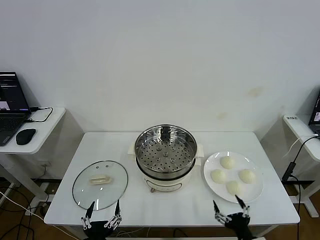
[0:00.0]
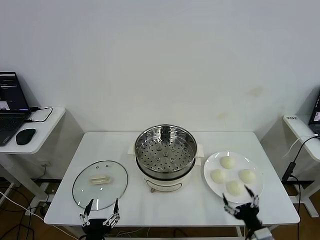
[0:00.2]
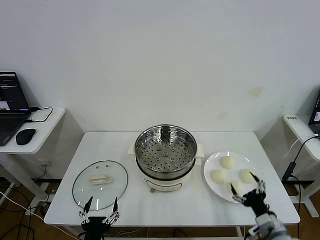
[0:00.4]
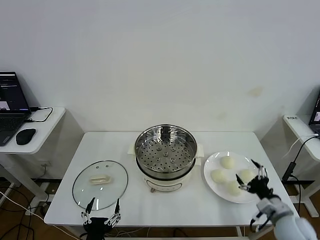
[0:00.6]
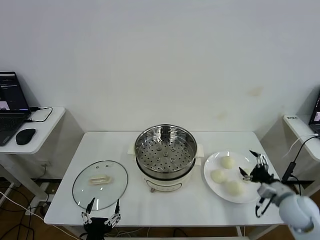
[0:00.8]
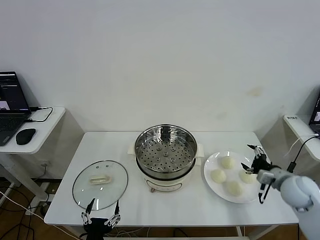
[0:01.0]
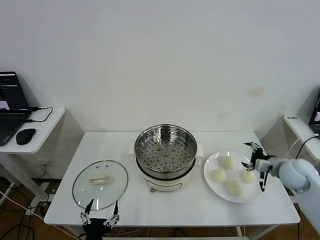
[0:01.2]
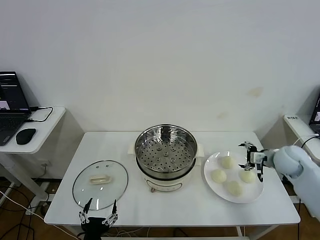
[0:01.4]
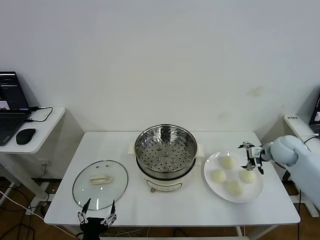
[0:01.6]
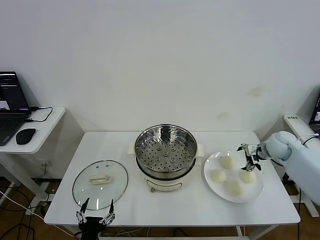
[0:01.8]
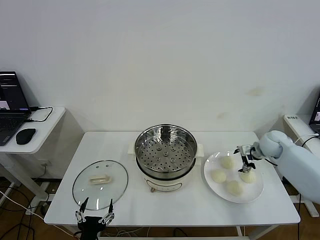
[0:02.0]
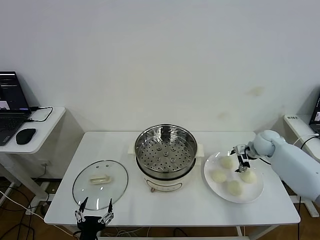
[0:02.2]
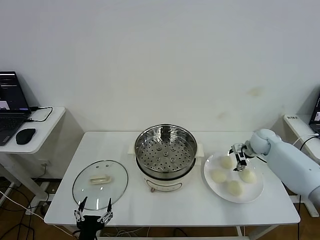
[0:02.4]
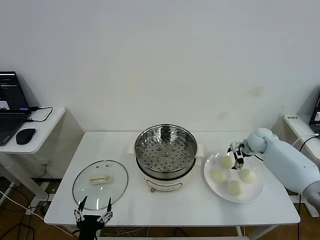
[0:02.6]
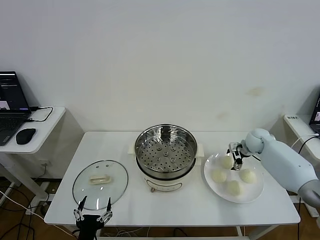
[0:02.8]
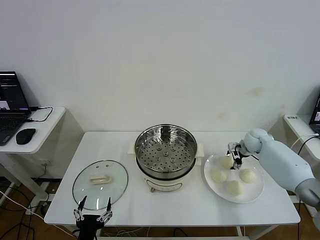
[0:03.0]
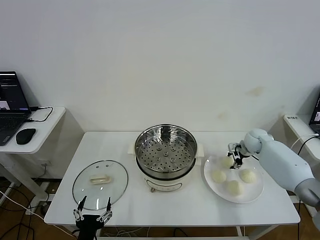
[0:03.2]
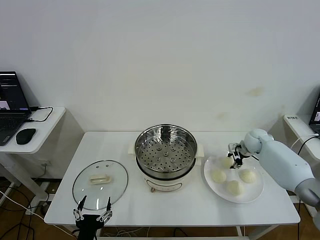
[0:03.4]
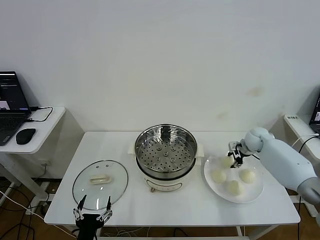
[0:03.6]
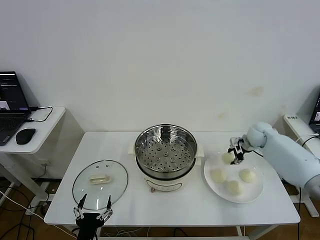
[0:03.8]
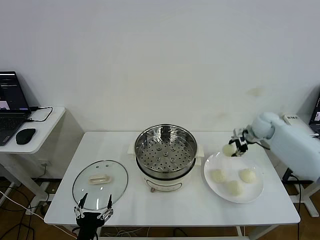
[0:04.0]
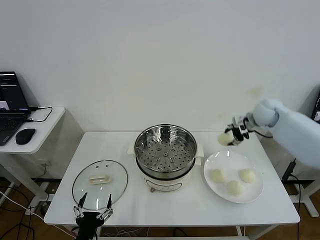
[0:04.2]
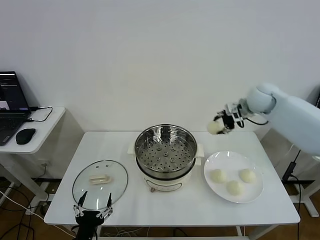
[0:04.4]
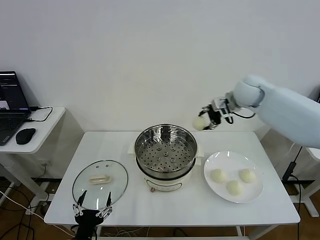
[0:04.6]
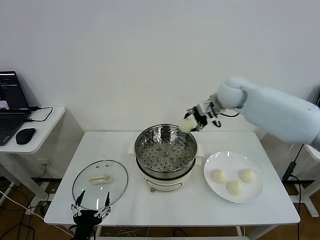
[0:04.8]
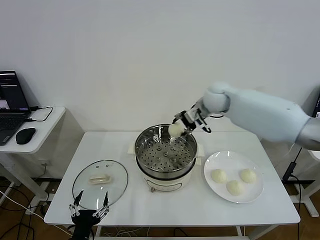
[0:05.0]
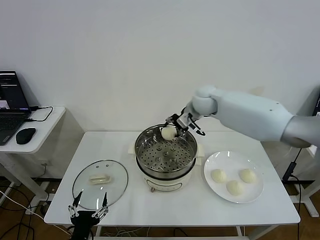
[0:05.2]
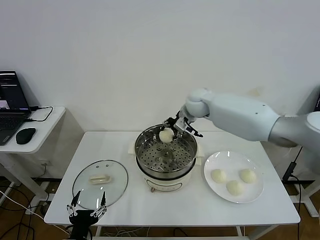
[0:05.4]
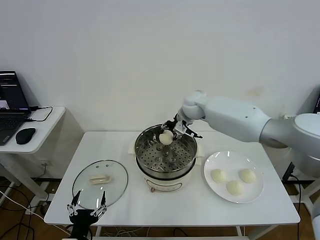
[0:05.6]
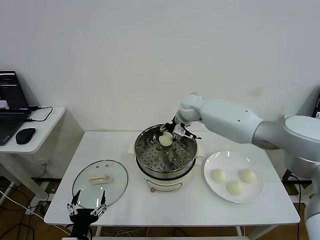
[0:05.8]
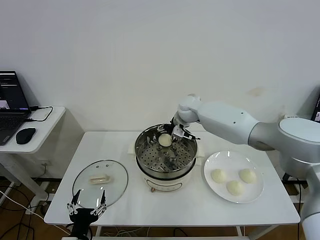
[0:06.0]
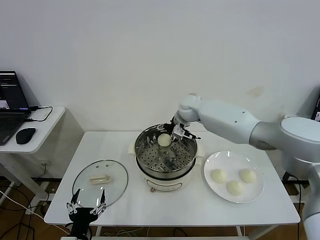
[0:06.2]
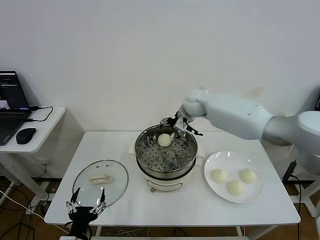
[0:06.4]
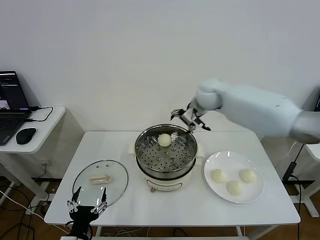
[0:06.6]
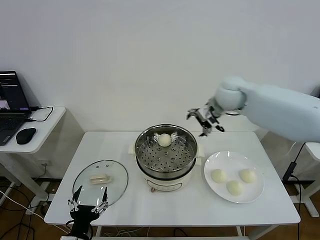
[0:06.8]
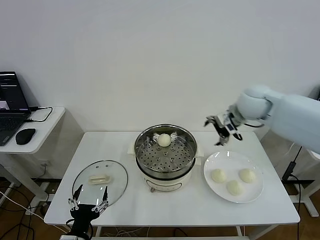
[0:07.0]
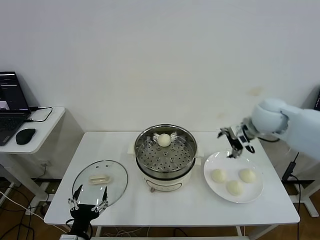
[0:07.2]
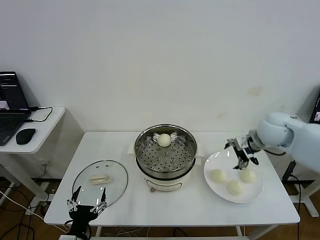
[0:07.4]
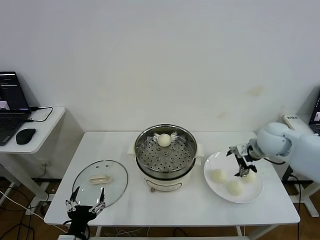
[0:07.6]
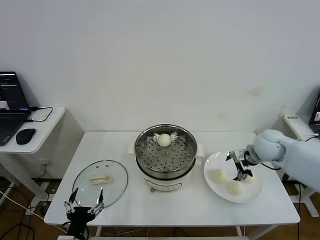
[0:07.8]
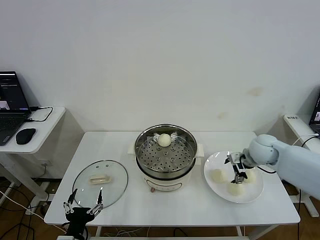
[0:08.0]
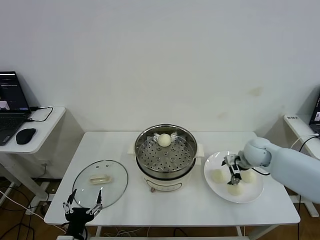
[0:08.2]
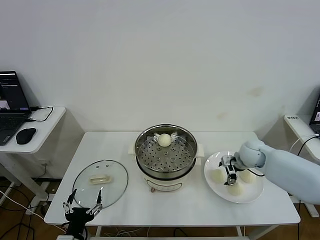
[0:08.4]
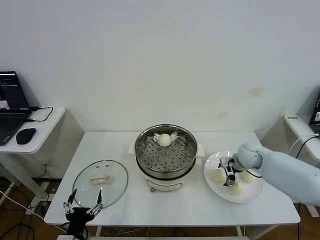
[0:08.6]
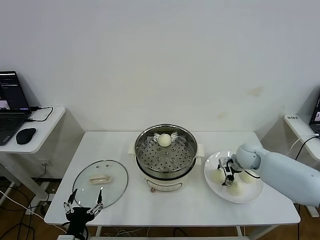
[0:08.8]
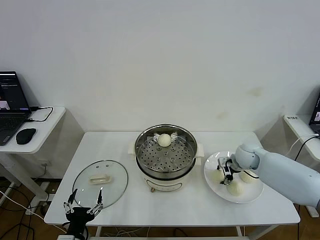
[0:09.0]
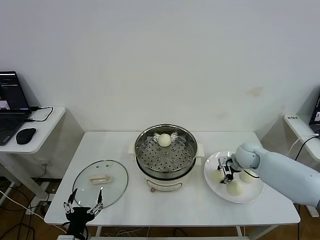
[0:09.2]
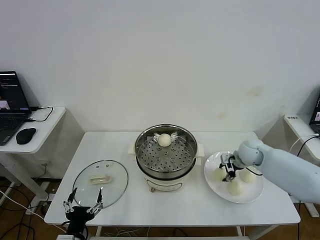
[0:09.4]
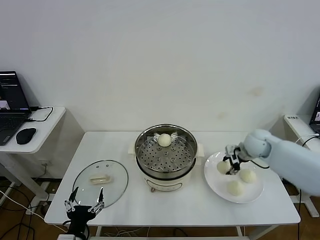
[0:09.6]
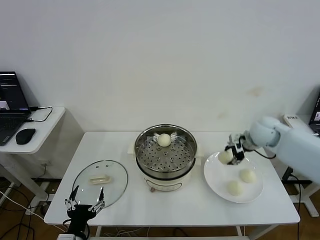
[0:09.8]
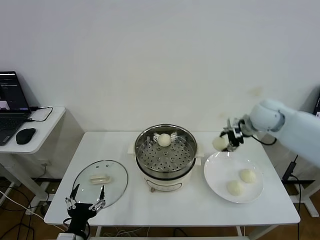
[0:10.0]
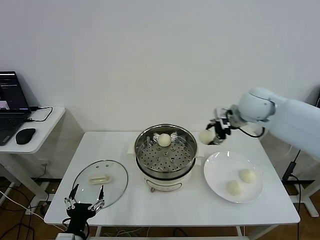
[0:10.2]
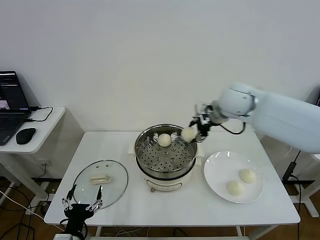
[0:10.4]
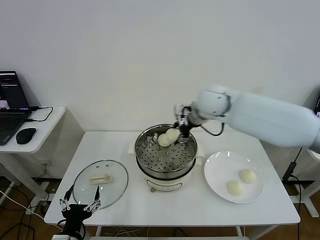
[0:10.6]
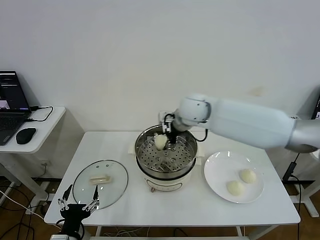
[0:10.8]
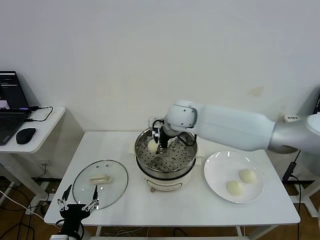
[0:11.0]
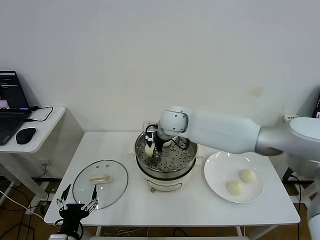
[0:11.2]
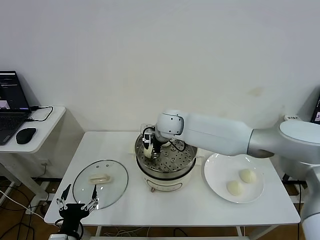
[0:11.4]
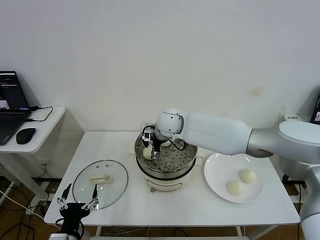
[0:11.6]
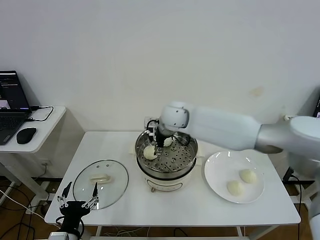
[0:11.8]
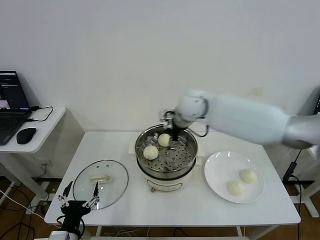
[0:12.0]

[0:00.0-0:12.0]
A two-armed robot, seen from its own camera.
Step, 0:00.0 to 0:03.2: Grasp the baozi in the plate with right gripper.
Step, 0:03.4 to 0:06.0: Place the baozi on the steamer with right gripper.
Step, 0:06.2 to 0:09.0: Grasp the baozi in the plate with right gripper.
Step, 0:09.2 to 0:11.4: Place the baozi on the steamer with right gripper.
0:01.6 to 0:03.0: The right gripper shifts some 10 cm forward and downward, and closes its fingers.
0:03.0 to 0:04.4: The right gripper heads upward and to the left, covering approximately 25 cm.
0:04.4 to 0:06.0: The right gripper travels to the left and downward by about 20 cm, and opens.
0:06.0 to 0:07.6: The right gripper is displaced to the right and backward by roughly 30 cm.
0:07.6 to 0:09.0: The right gripper shifts roughly 10 cm downward, and closes up.
0:09.0 to 0:10.4: The right gripper travels upward and to the left by some 30 cm.
0:10.4 to 0:12.0: The right gripper travels to the left and back again, approximately 15 cm each way, and opens up.

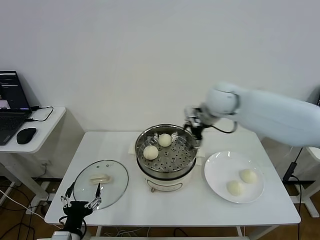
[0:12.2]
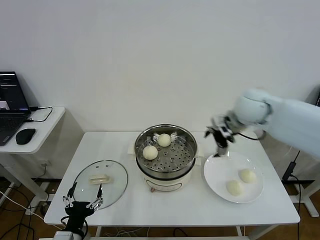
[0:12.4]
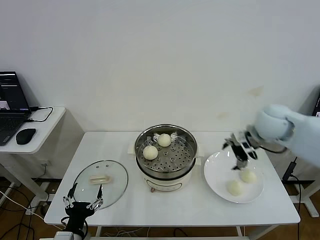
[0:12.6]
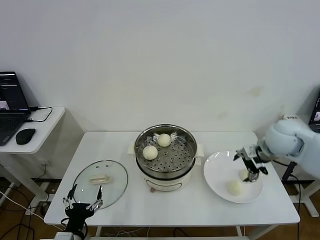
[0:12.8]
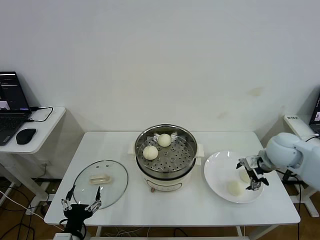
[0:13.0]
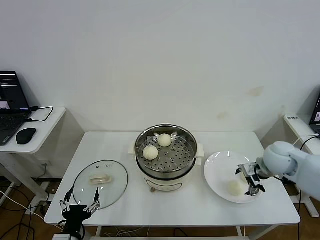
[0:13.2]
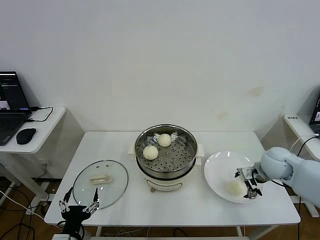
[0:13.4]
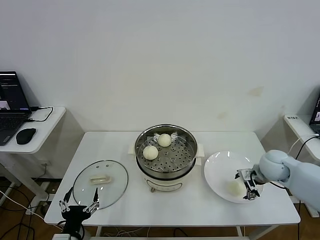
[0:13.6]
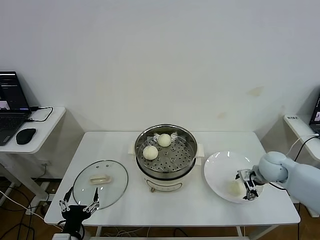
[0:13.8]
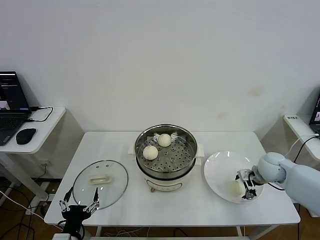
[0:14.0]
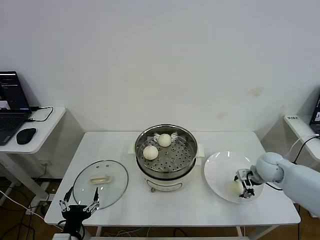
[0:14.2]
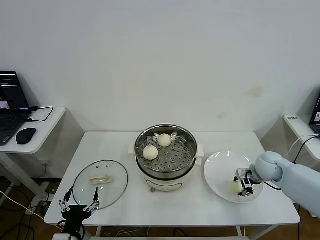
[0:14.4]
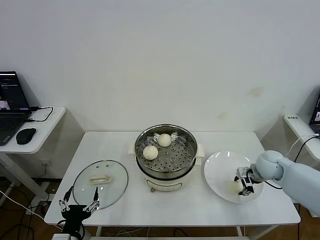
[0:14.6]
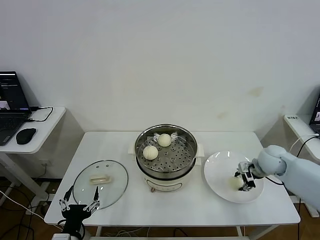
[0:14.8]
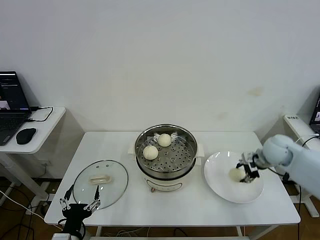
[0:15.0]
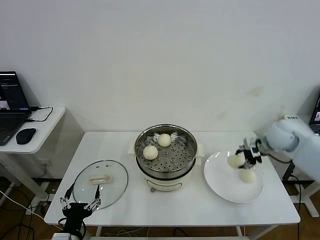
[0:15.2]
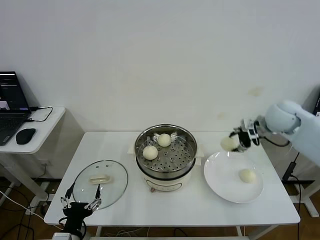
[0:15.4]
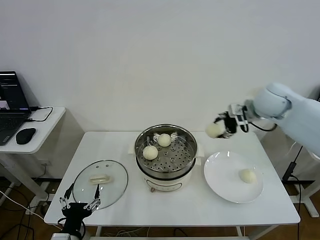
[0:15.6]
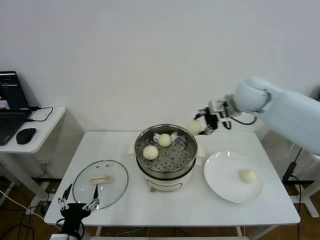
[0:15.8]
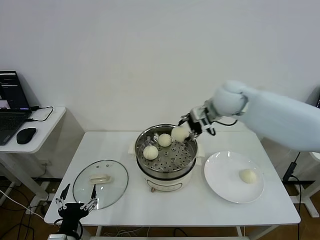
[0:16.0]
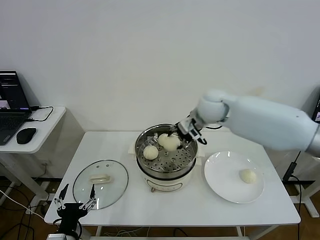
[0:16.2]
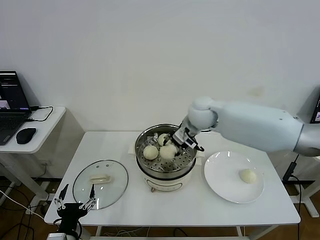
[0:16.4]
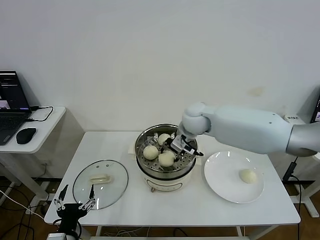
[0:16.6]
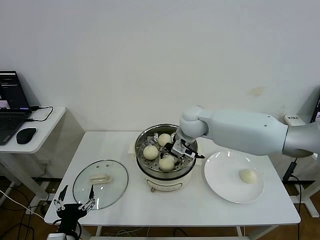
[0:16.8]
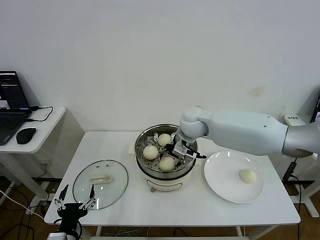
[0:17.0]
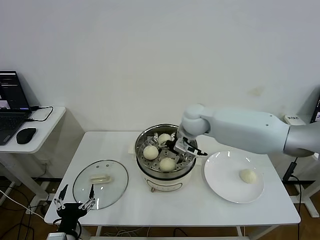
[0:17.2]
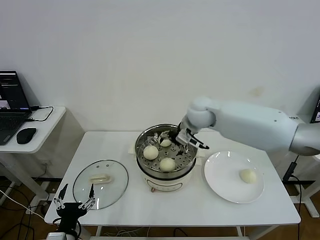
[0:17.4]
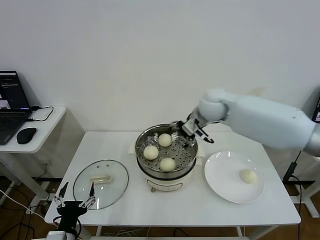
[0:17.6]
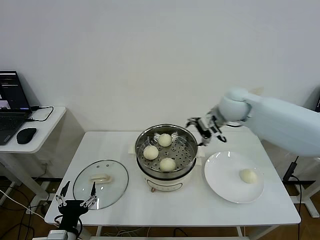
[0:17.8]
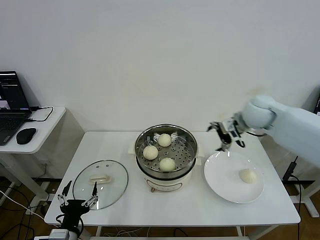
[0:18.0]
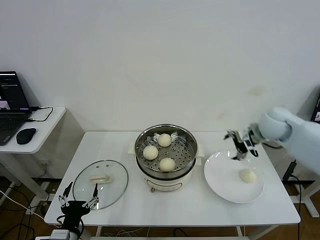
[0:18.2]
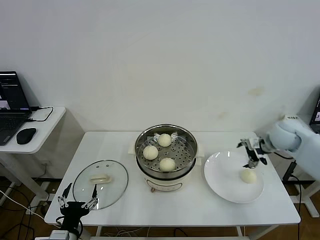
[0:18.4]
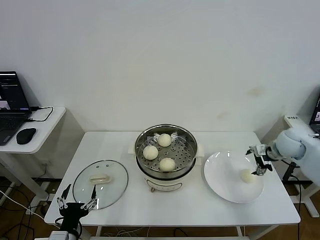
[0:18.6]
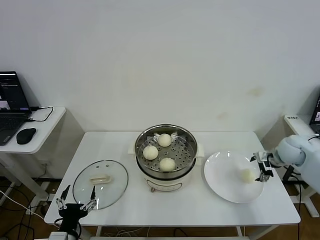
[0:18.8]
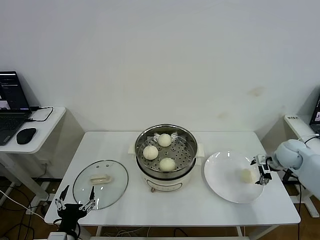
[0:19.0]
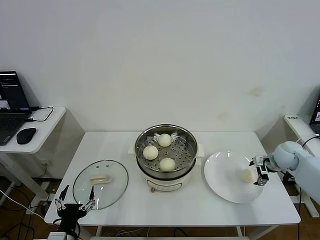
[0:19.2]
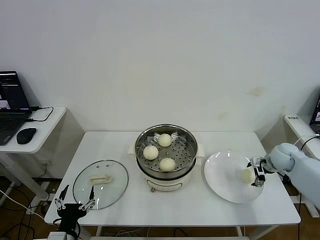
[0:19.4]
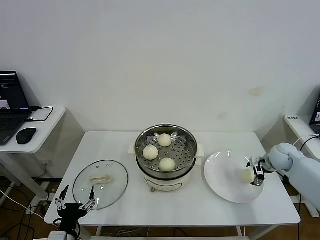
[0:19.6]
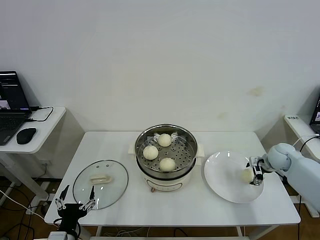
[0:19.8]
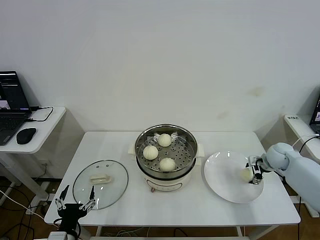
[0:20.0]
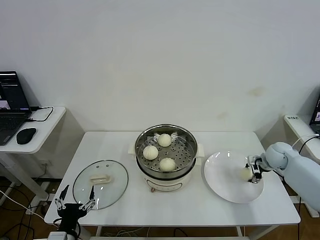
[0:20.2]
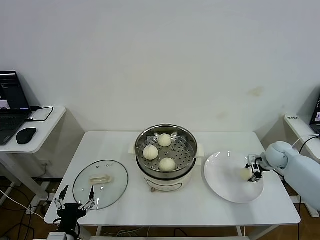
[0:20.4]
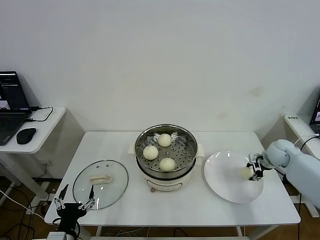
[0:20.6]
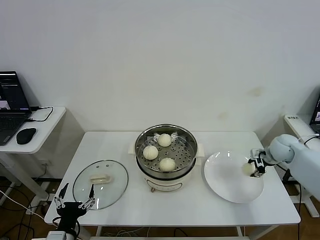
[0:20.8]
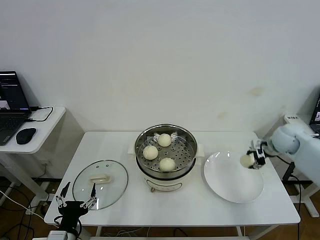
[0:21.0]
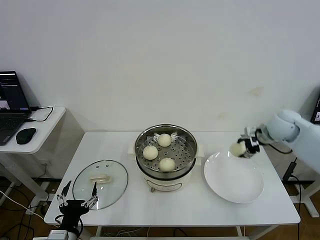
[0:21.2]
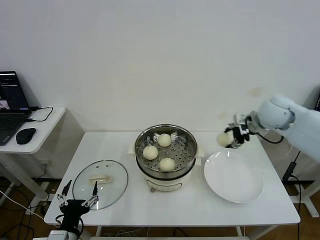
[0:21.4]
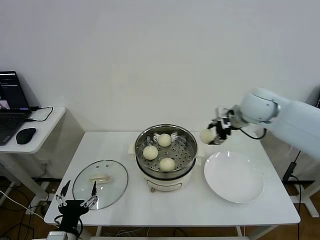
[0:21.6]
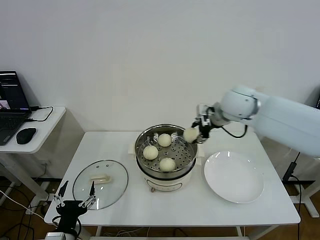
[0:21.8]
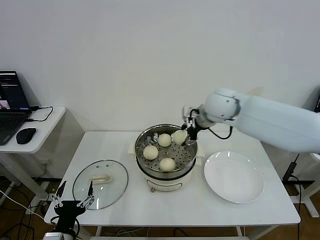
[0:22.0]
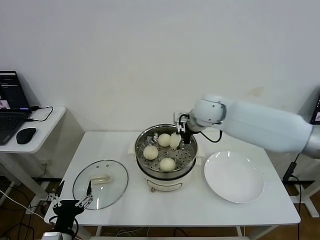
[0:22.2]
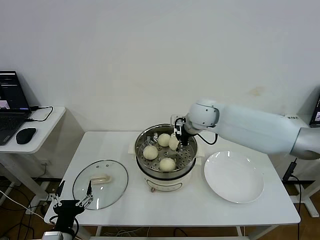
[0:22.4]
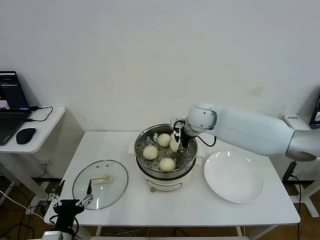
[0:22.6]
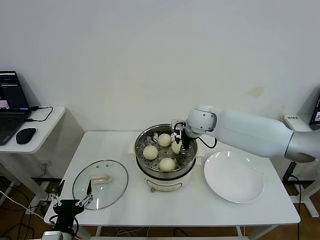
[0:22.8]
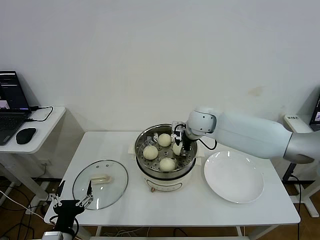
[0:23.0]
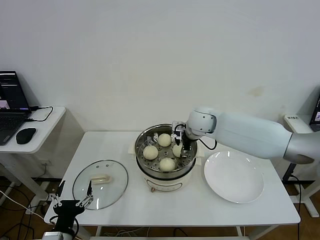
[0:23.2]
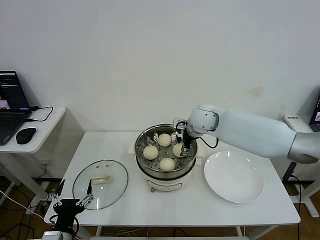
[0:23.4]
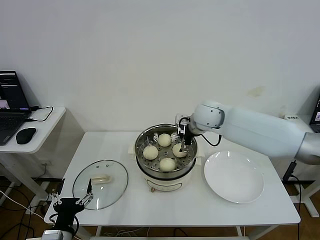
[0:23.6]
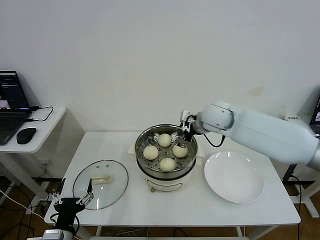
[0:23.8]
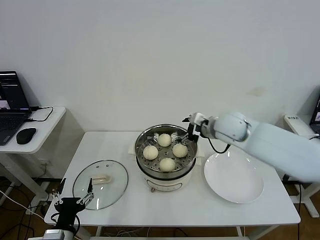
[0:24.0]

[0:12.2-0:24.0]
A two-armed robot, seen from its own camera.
Step, 0:12.2 to 0:14.2: Grasp the baozi in the plate with right gripper.
Step, 0:14.6 to 0:17.0: Place the baozi on the steamer with right gripper.
Step, 0:17.2 to 0:20.2: Grasp the baozi in the plate with right gripper.
Step, 0:20.4 to 0:23.2: Place the baozi on the steamer with right gripper.
0:12.2 to 0:13.6: The right gripper moves downward, to the right and backward, some 25 cm.
0:13.6 to 0:15.2: The right gripper is displaced upward and forward by approximately 15 cm, and closes its fingers.
0:15.2 to 0:16.6: The right gripper moves to the left, approximately 30 cm.
0:16.6 to 0:18.2: The right gripper moves to the right, roughly 25 cm, and opens.
0:18.2 to 0:19.6: The right gripper goes some 15 cm downward and to the right.
0:19.6 to 0:21.0: The right gripper moves upward, about 10 cm, and closes.
0:21.0 to 0:22.6: The right gripper heads to the left, covering approximately 30 cm.
0:22.6 to 0:24.0: The right gripper shifts about 10 cm to the right and backward, and opens.
